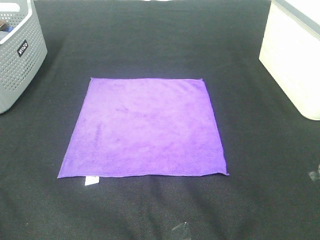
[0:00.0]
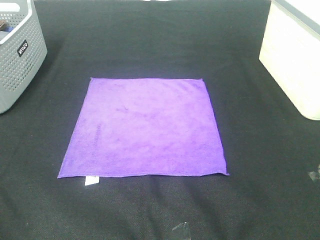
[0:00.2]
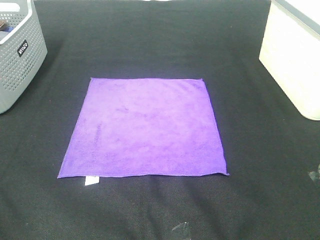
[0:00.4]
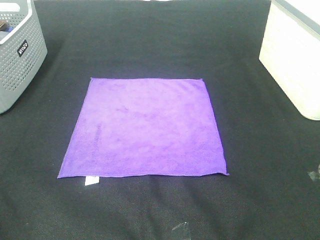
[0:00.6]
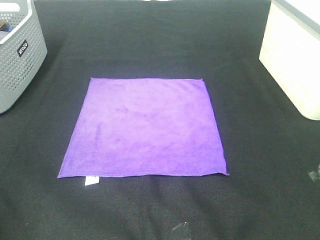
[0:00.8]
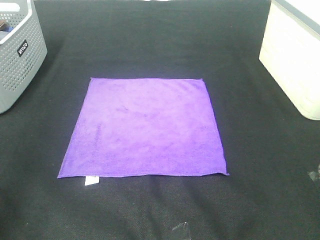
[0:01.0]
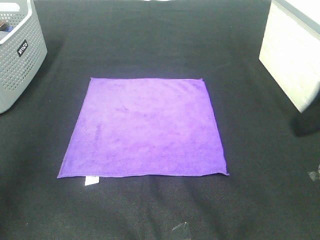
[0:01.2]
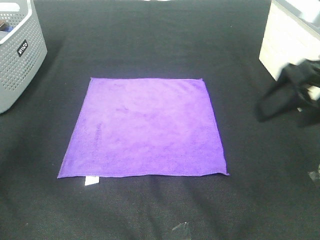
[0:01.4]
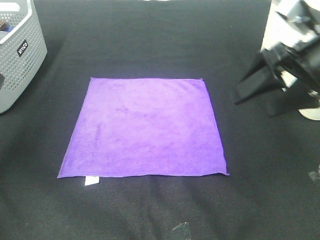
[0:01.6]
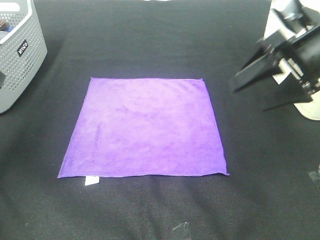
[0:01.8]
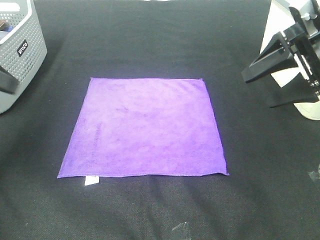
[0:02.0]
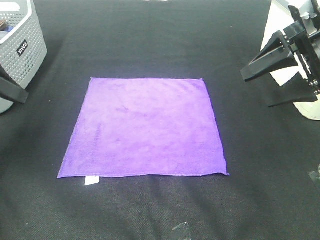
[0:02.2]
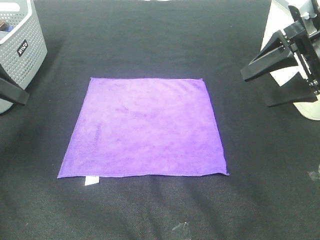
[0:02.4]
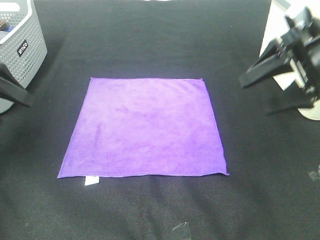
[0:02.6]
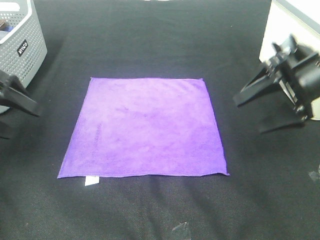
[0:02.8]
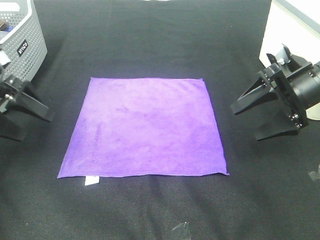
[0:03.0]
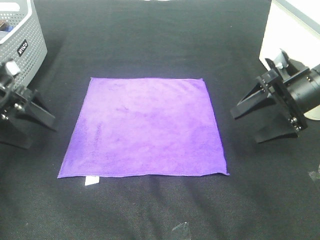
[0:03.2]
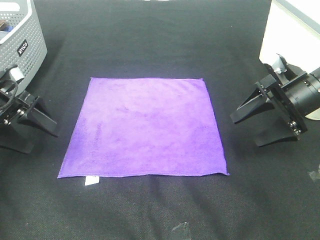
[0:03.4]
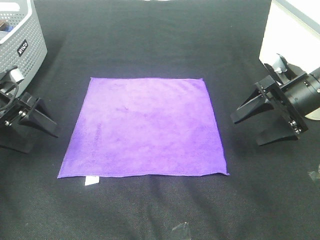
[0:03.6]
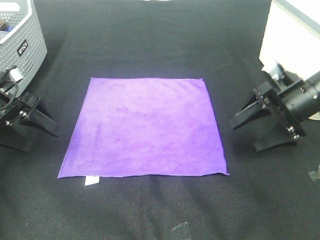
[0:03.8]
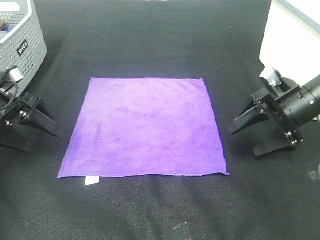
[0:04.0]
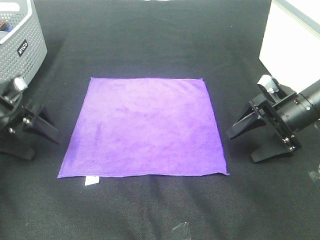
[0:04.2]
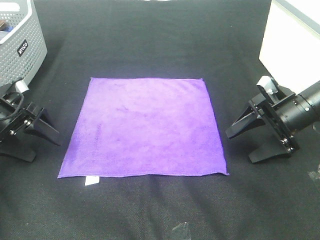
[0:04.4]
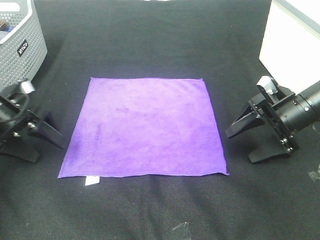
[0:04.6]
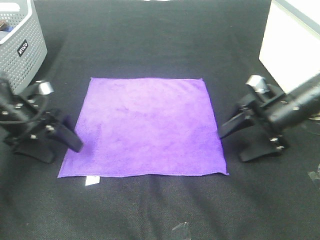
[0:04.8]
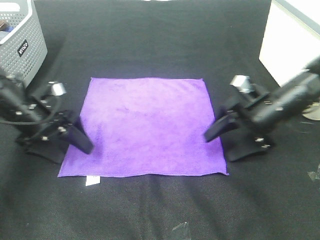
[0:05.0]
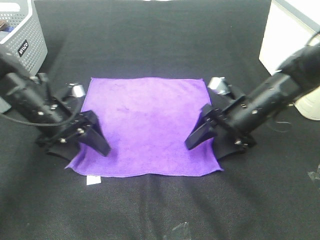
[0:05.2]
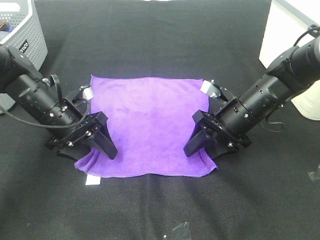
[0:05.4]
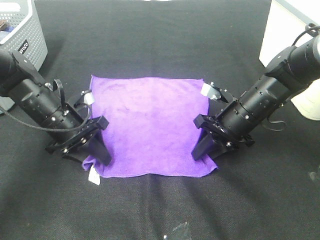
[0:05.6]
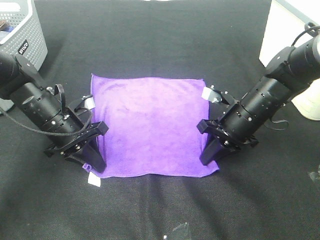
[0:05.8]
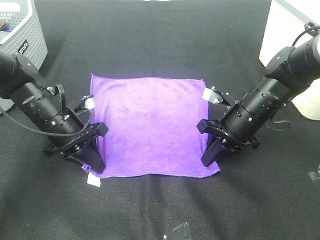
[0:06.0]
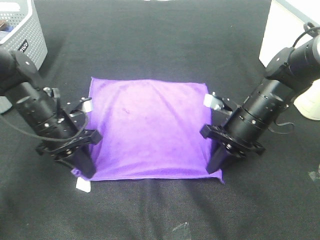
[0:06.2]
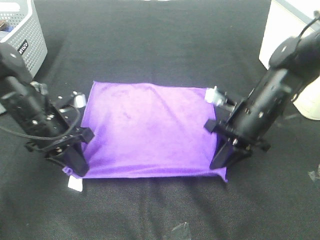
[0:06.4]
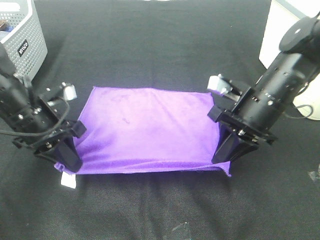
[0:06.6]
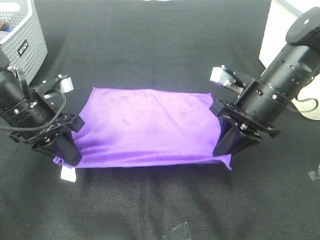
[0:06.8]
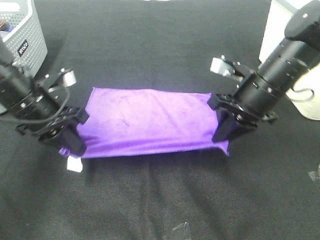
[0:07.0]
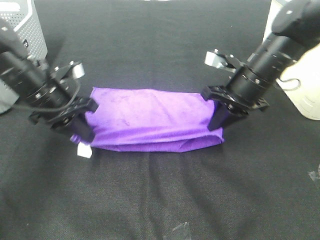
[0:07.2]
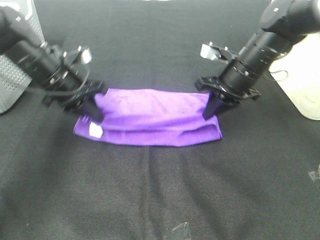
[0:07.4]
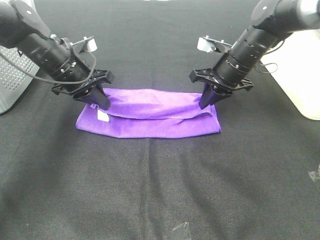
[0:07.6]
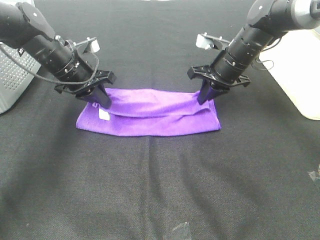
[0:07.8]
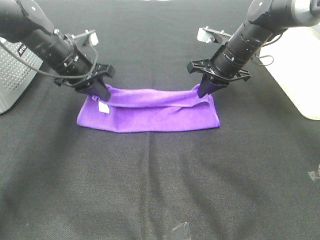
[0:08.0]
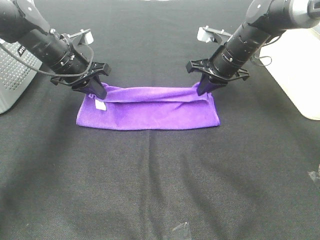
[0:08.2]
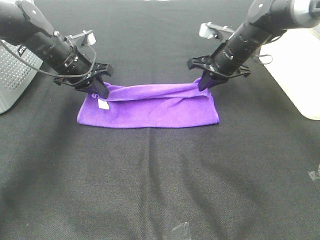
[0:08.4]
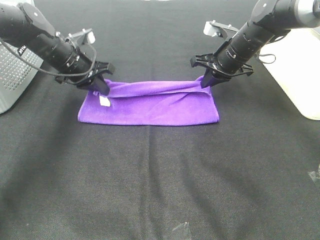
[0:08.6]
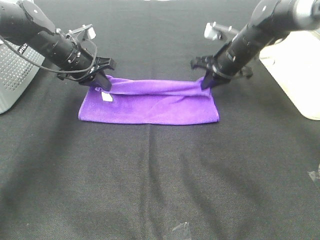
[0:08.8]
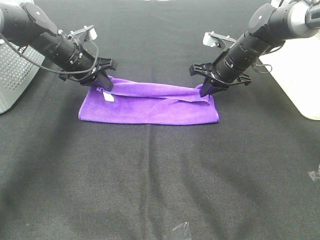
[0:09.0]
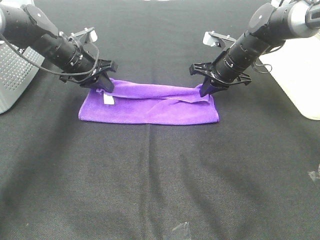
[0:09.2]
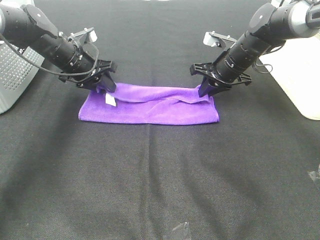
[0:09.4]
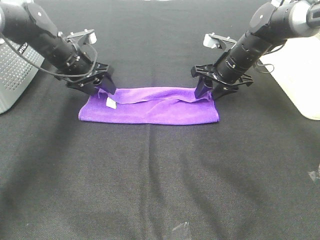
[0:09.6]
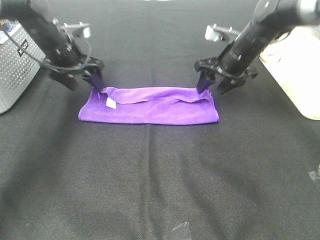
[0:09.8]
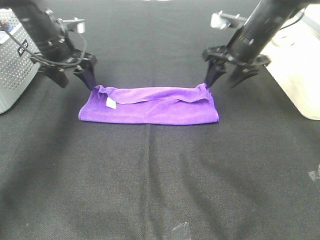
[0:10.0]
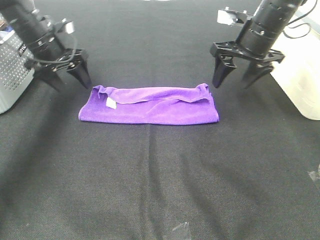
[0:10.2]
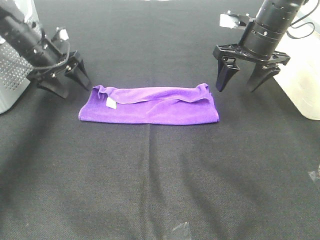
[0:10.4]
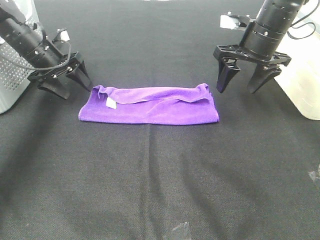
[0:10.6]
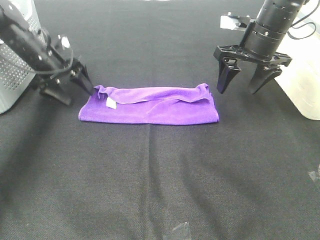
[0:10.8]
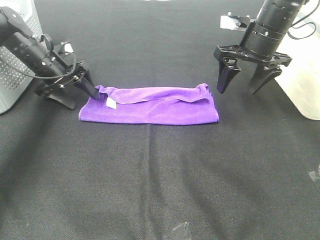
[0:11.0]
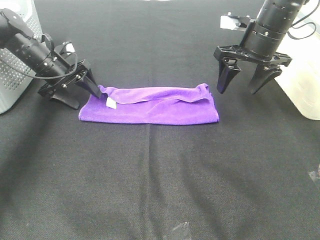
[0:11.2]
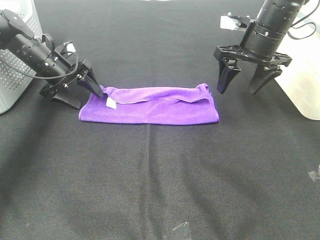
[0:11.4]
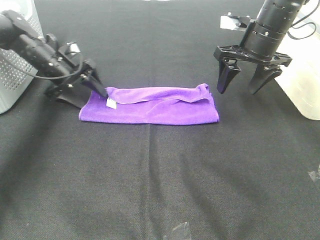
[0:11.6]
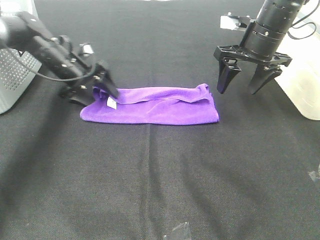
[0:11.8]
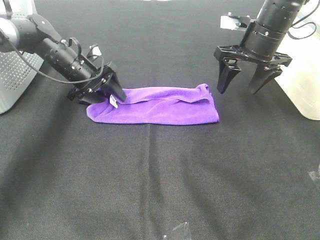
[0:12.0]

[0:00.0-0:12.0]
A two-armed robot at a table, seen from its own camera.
Task of the whole recording: Fold towels.
Step, 0:00.0 to 0:06.0: Left hand: grab the bottom left corner of purple towel.
Step, 0:00.0 to 0:06.0: Right hand: grab the bottom right corner of purple towel.
Step, 0:06.2 to 0:09.2: Left hand: fold the purple towel up.
Step, 0:06.2 to 0:09.2: Right hand: fold the purple towel up.
0:00.0 to 0:01.6: Both grippers move forward, some 30 cm.
0:01.6 to 0:03.0: Both grippers travel together downward and forward, roughly 10 cm.
0:03.0 to 0:04.4: Both grippers move downward, some 5 cm.
0:04.4 to 0:06.0: The left gripper moves to the right, some 10 cm, and closes. The right gripper moves to the left, some 10 cm, and closes up.
0:06.0 to 0:07.6: The two grippers go approximately 10 cm forward and upward.
0:07.6 to 0:09.0: The left gripper goes roughly 5 cm forward.
0:09.0 to 0:10.4: The right gripper heads upward, covering roughly 10 cm, and opens its fingers; the left gripper is displaced to the left by roughly 5 cm, and opens its fingers.
0:10.4 to 0:12.0: The left gripper travels to the right and downward by about 10 cm.

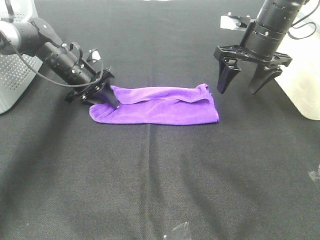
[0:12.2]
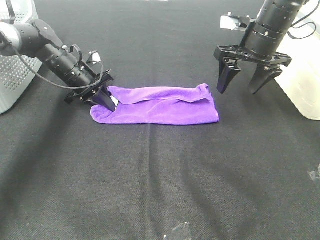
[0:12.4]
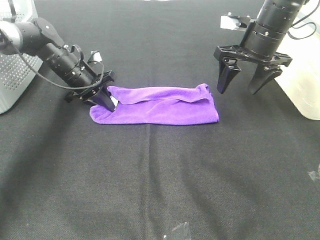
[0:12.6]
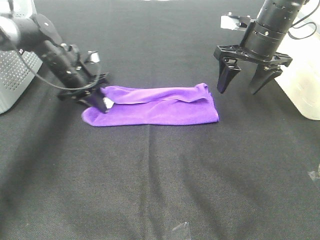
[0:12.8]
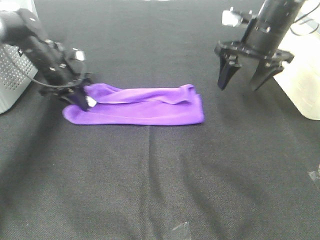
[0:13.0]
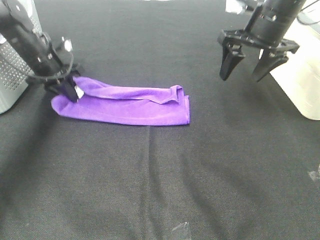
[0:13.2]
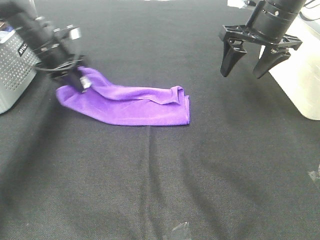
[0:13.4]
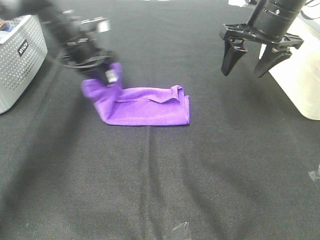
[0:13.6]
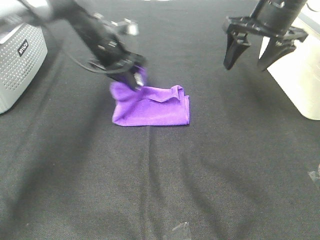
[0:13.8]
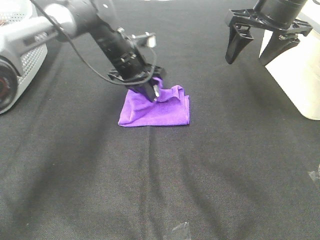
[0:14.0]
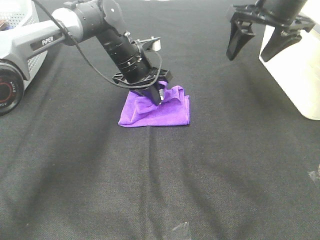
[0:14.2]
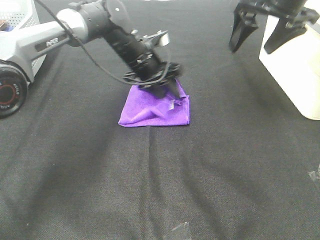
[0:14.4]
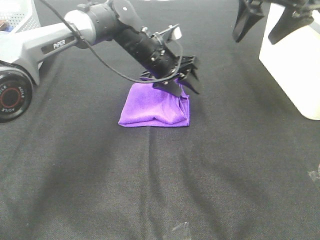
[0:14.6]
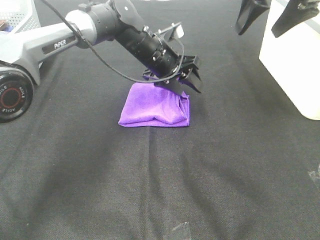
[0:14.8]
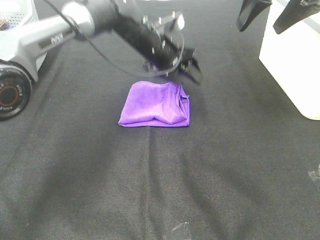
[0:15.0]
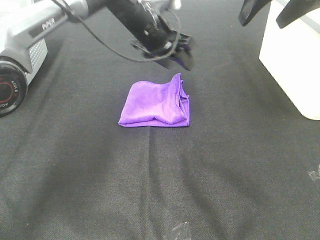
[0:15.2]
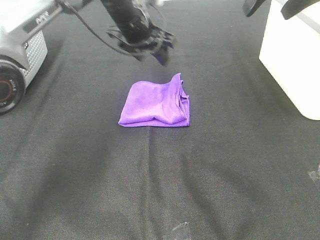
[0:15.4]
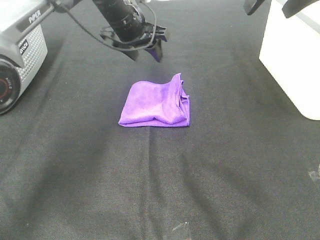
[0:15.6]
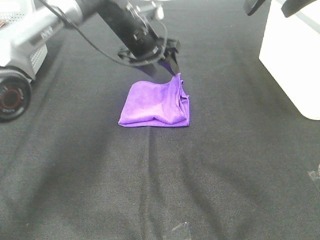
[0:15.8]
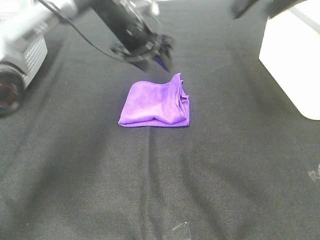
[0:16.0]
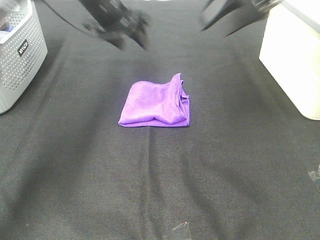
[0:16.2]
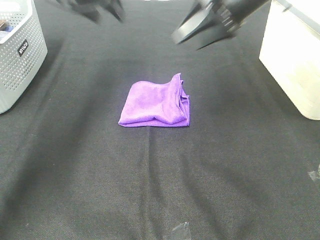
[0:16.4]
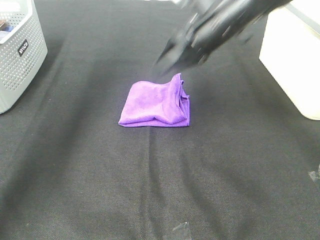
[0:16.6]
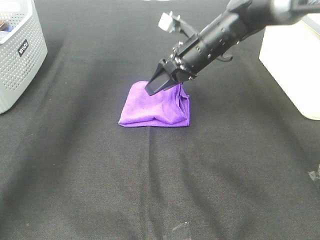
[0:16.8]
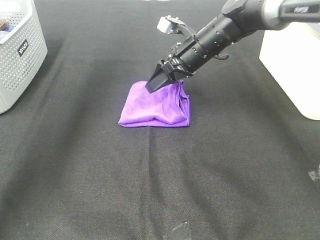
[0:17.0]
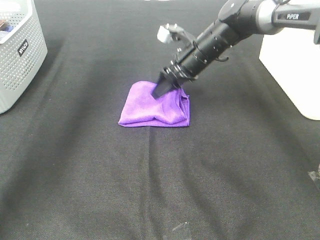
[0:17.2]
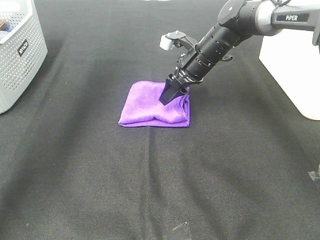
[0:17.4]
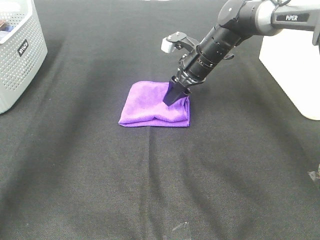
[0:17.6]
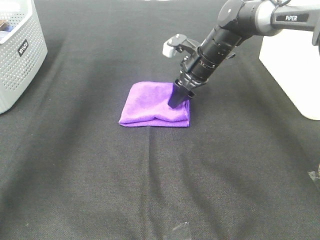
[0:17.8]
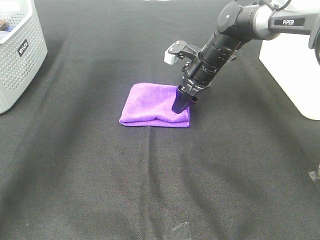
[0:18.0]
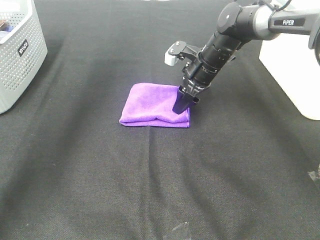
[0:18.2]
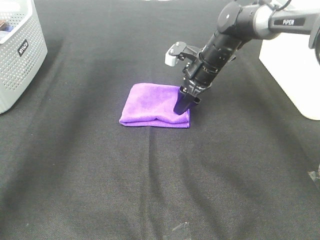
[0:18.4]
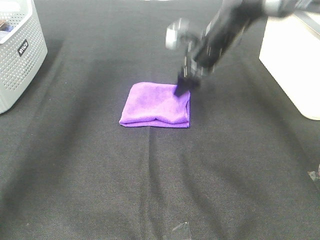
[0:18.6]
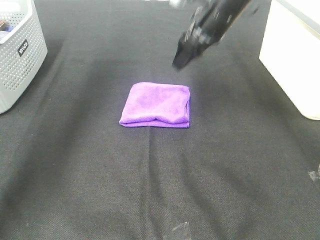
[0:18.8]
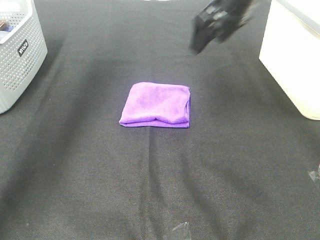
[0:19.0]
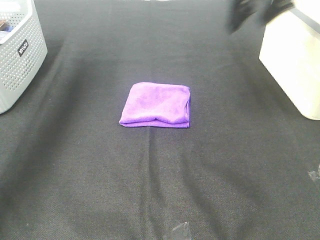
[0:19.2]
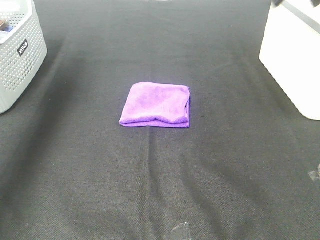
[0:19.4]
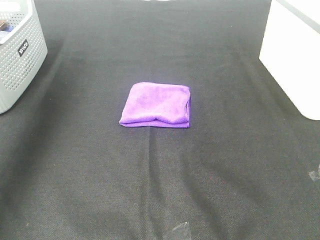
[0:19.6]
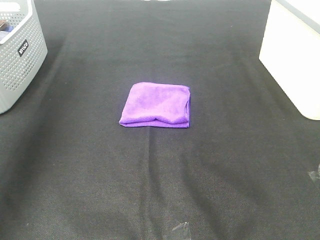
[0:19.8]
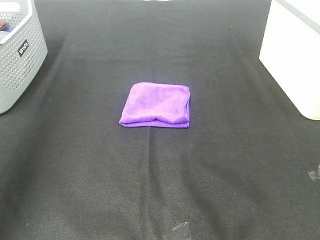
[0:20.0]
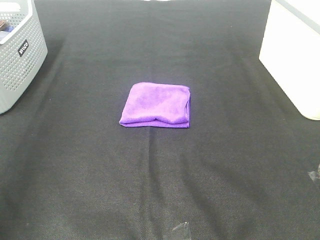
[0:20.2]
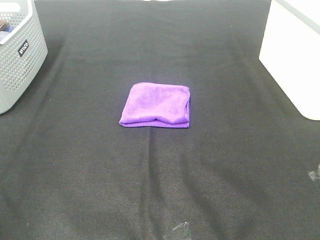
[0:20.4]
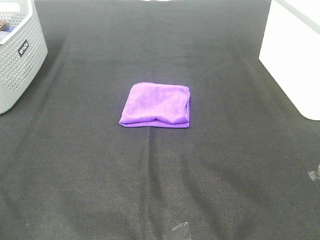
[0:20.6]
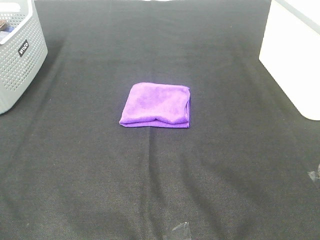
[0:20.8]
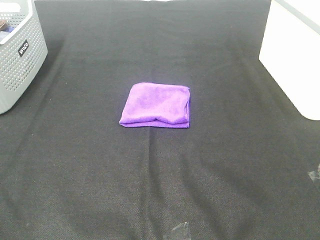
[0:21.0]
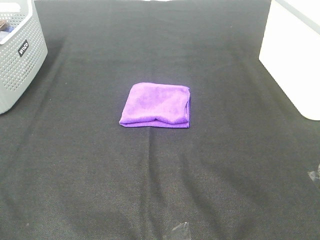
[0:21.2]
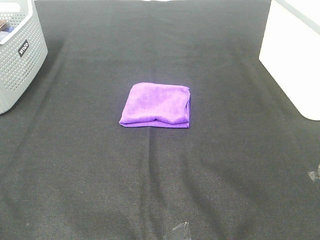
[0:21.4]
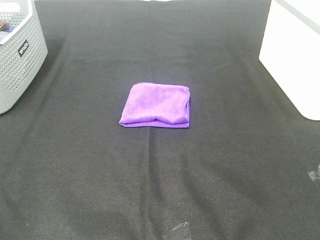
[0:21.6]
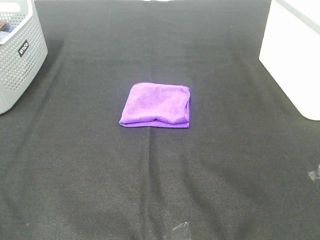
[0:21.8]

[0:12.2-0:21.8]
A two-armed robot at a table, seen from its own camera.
Task of the whole recording: Fold towels.
Step, 0:12.2 to 0:14.2: Left hand: fold the purple towel from left to right.
Step, 0:14.4 to 0:17.4: Right hand: adjust the purple towel.
0:12.2 to 0:13.8: The left gripper travels to the right and upward by about 10 cm. Meanwhile the right gripper goes some 5 cm upward.
0:13.8 to 0:15.4: The left gripper shifts approximately 5 cm upward, and opens up. The right gripper shifts roughly 10 cm upward.
0:15.4 to 0:17.0: The right gripper heads downward, to the left and forward, covering about 25 cm. The left gripper goes roughly 20 cm upward and to the left.
0:18.6 to 0:20.2: The left gripper heads backward, covering some 40 cm, while the right gripper is displaced backward, upward and to the right by some 50 cm.
0:20.2 to 0:21.8: The left gripper goes approximately 15 cm downward and backward.
